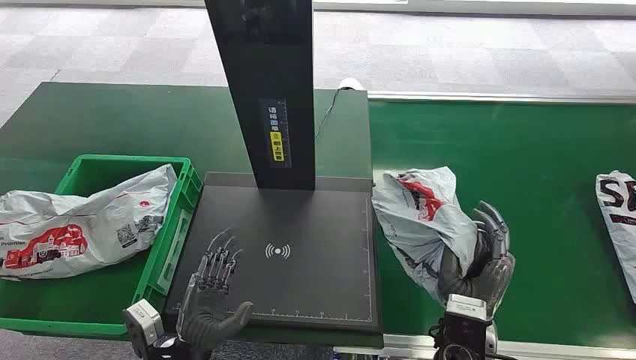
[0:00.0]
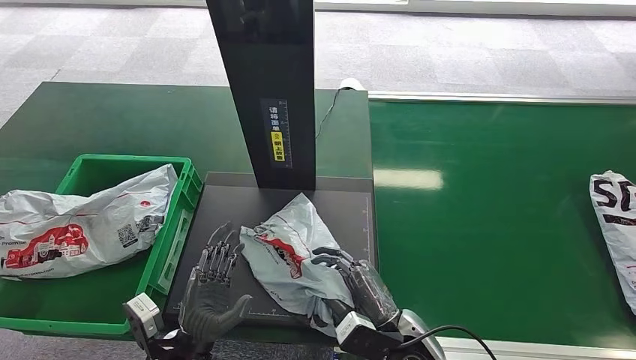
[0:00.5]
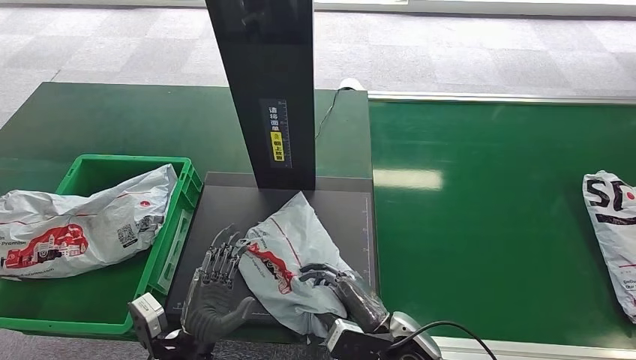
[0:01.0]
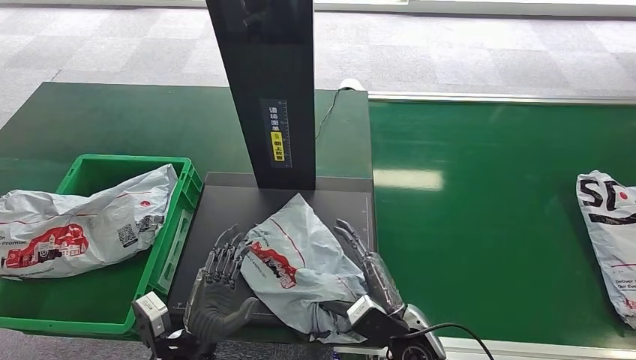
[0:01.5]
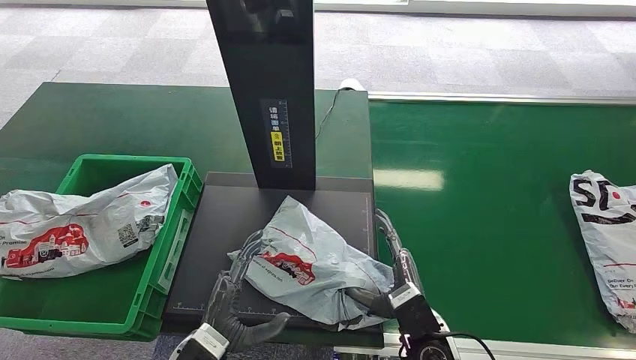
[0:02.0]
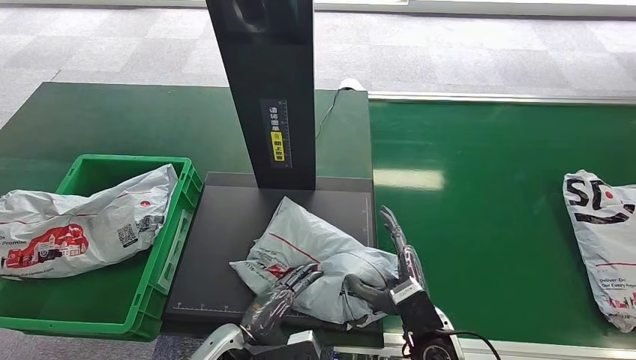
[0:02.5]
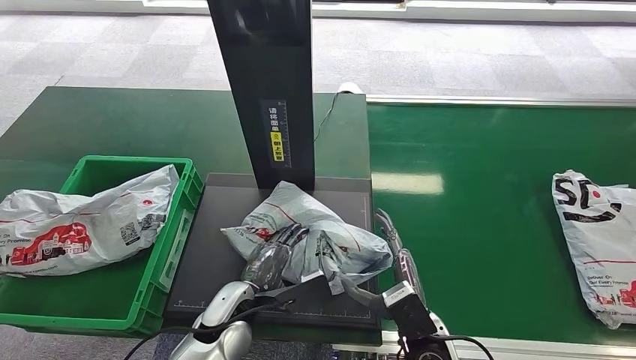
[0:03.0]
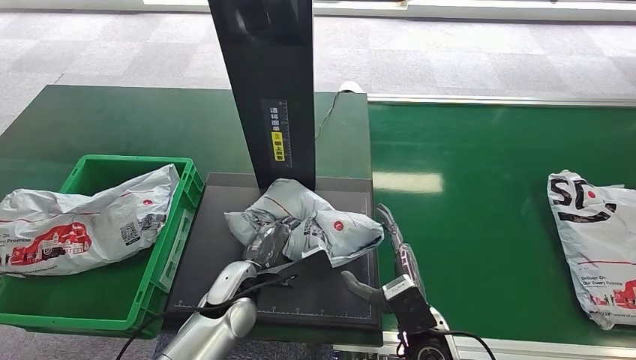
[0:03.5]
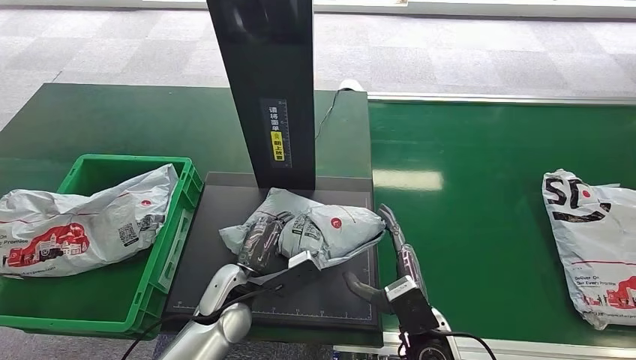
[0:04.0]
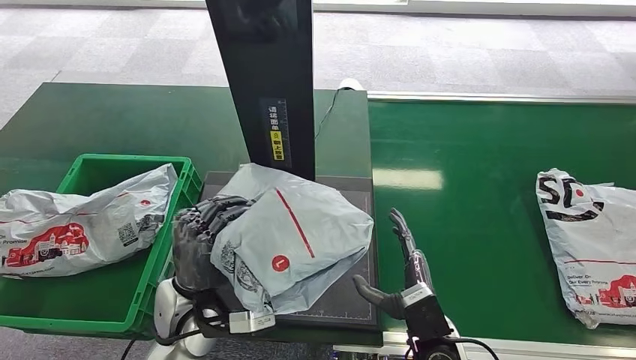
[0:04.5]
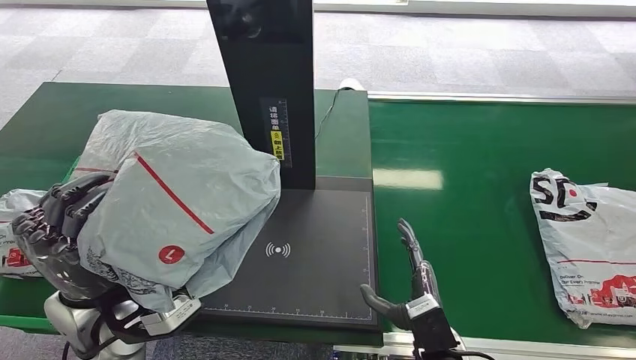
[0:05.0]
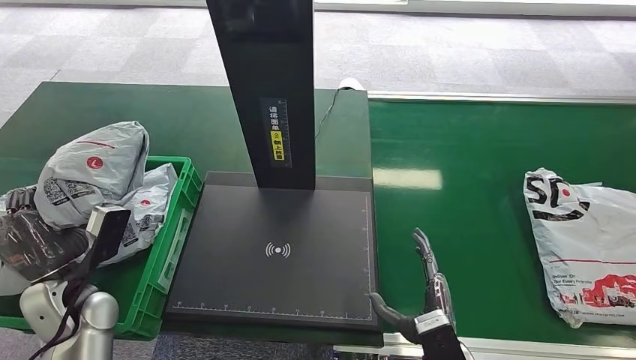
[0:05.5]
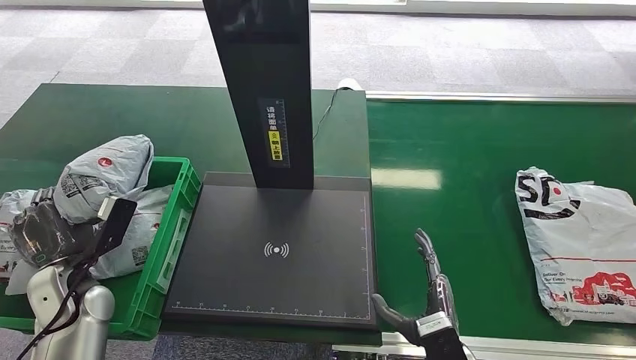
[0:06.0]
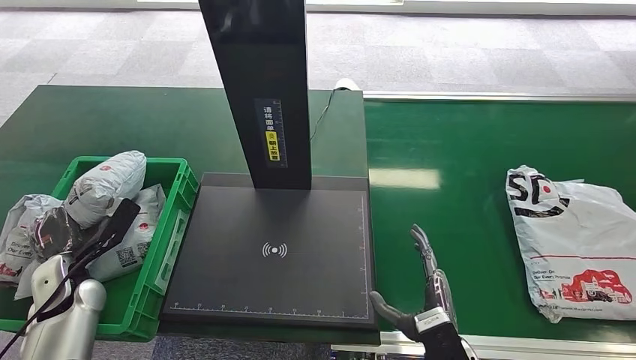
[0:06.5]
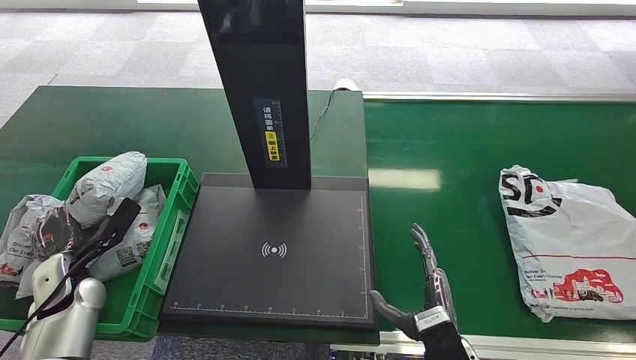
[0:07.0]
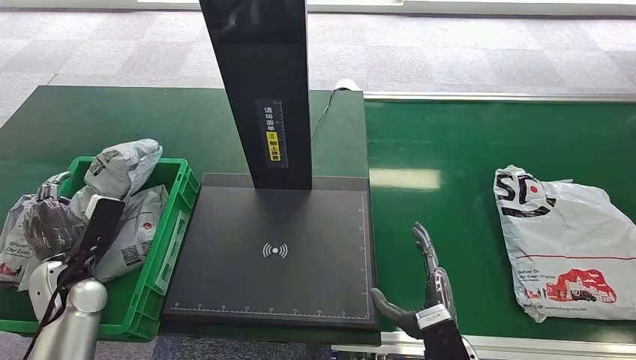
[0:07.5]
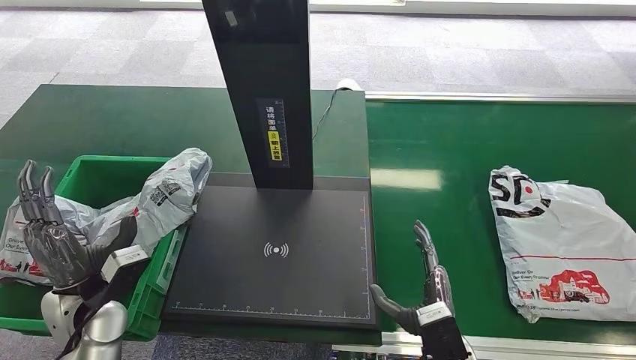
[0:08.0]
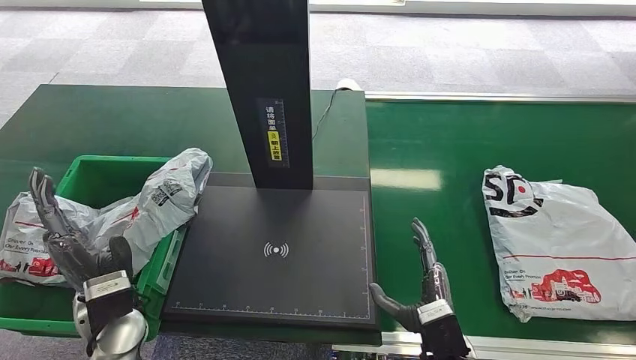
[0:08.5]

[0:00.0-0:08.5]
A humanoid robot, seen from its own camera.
0:02.0 to 0:04.0: The left hand moves forward, approximately 10 cm.
0:06.5 to 0:08.5: The left hand travels to the right by about 15 cm.

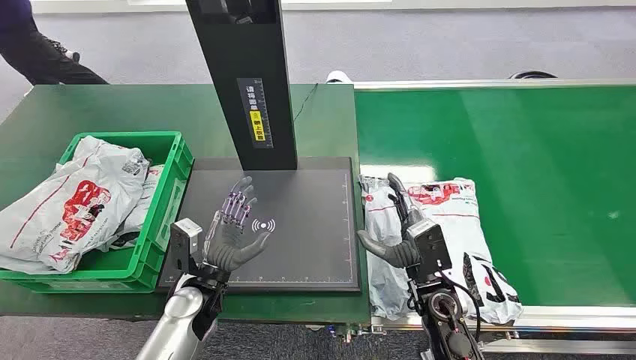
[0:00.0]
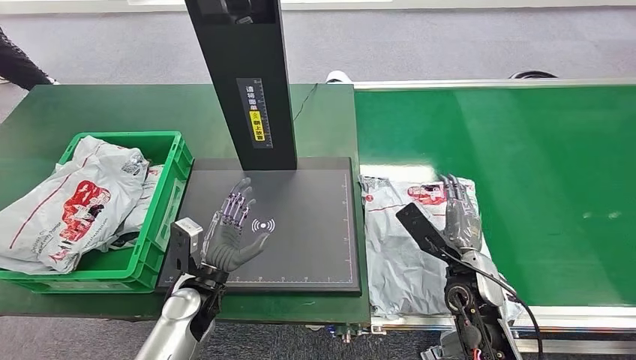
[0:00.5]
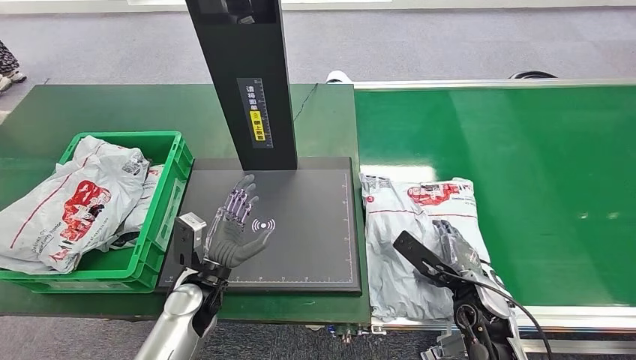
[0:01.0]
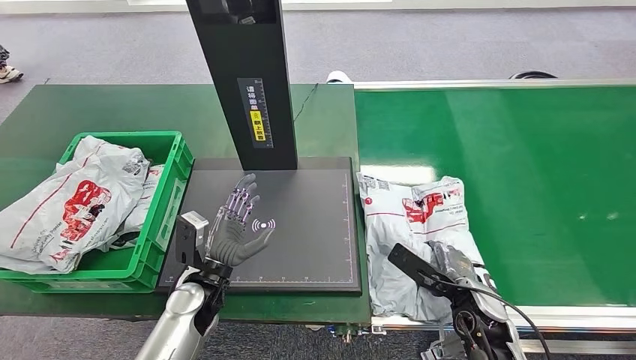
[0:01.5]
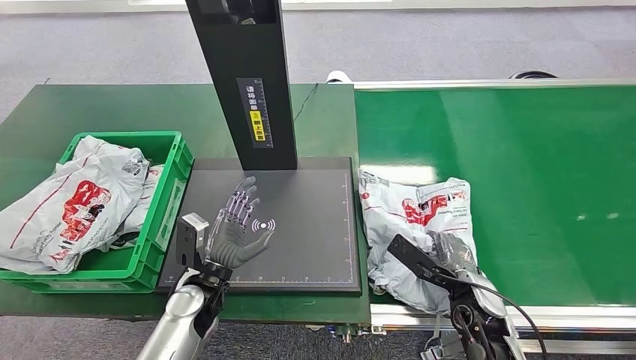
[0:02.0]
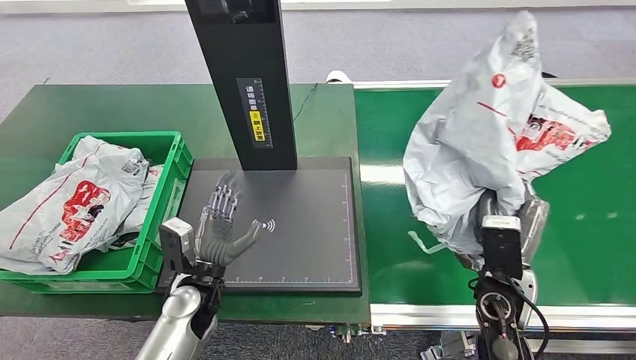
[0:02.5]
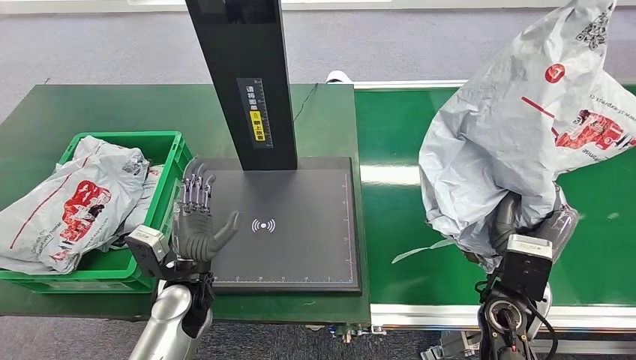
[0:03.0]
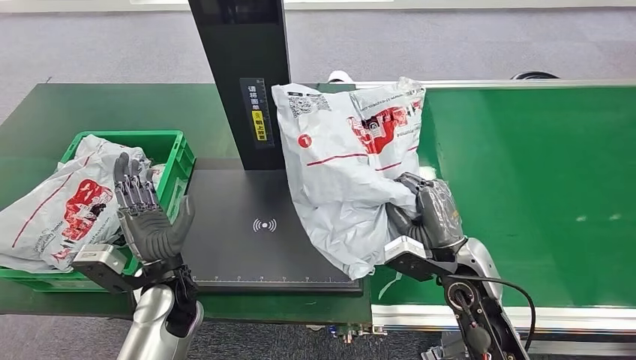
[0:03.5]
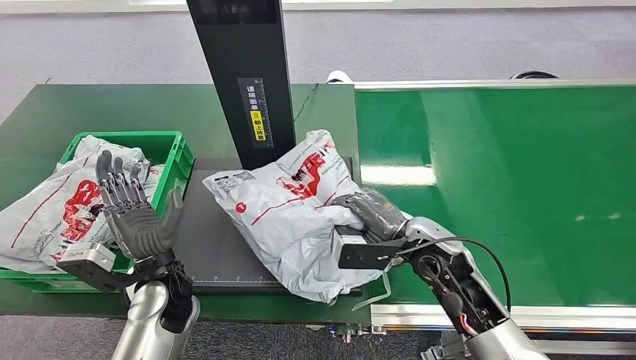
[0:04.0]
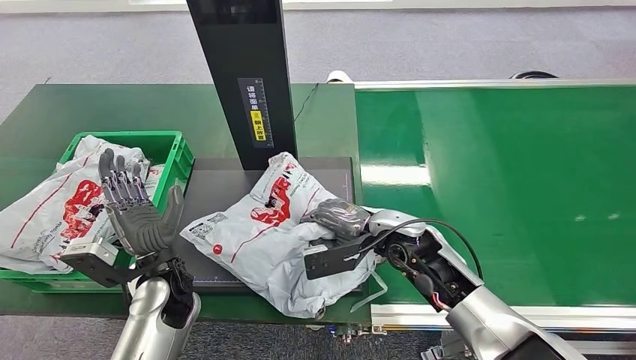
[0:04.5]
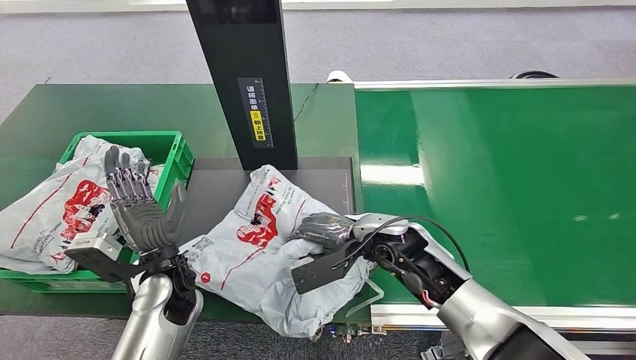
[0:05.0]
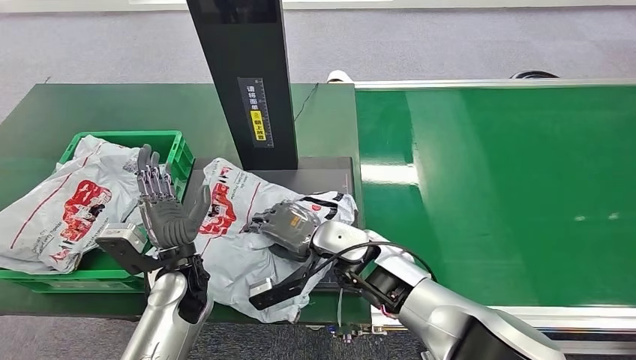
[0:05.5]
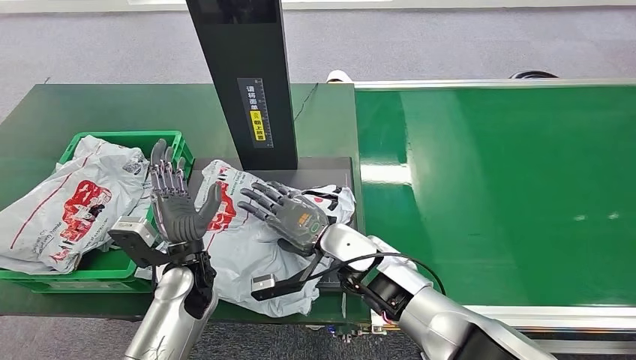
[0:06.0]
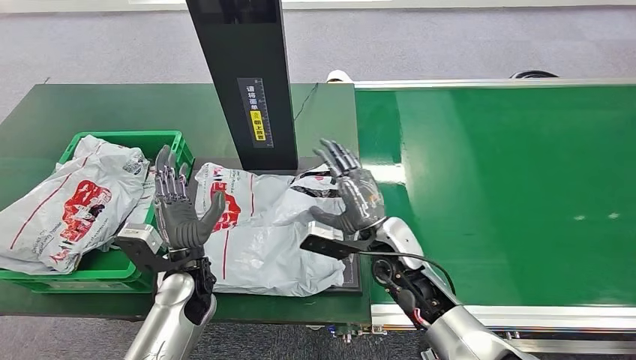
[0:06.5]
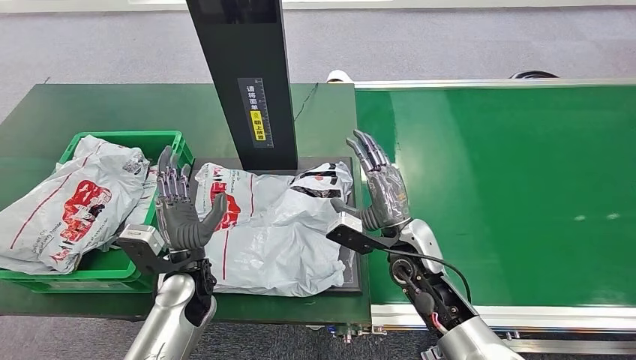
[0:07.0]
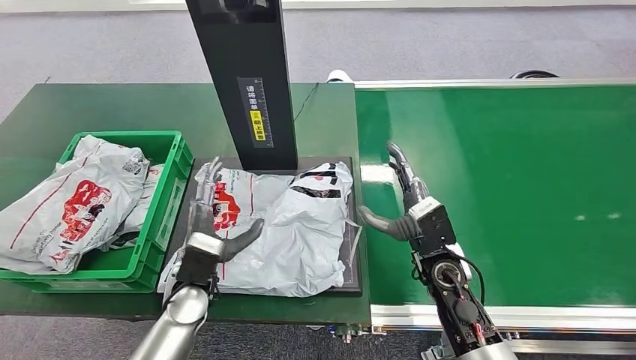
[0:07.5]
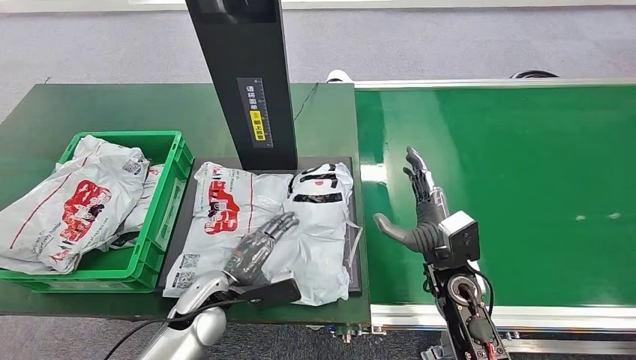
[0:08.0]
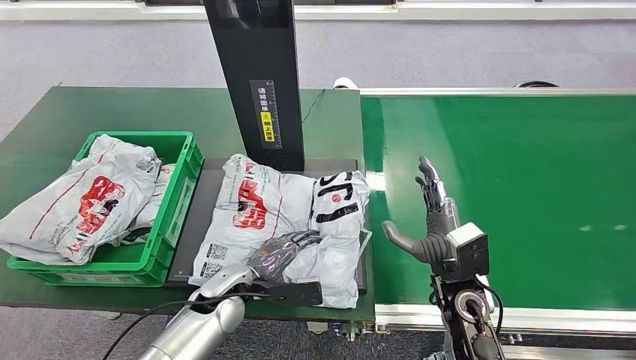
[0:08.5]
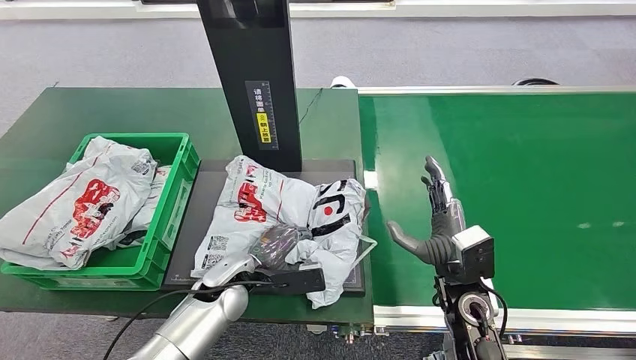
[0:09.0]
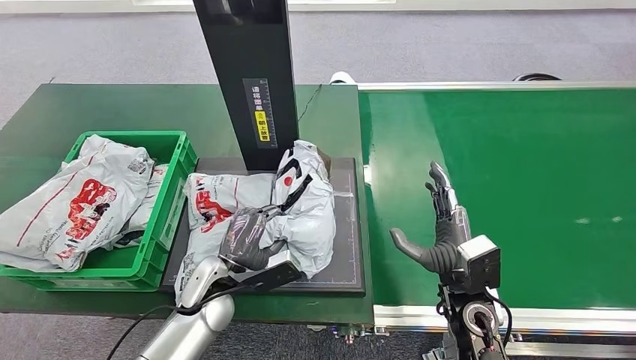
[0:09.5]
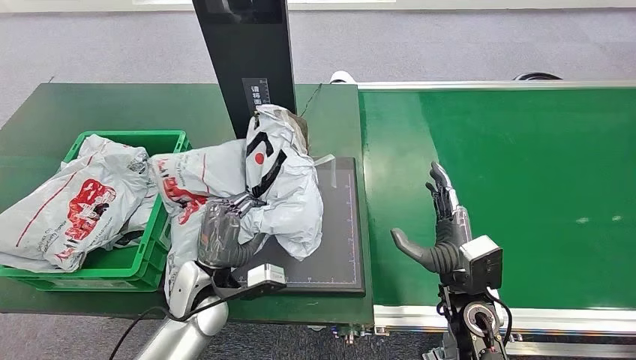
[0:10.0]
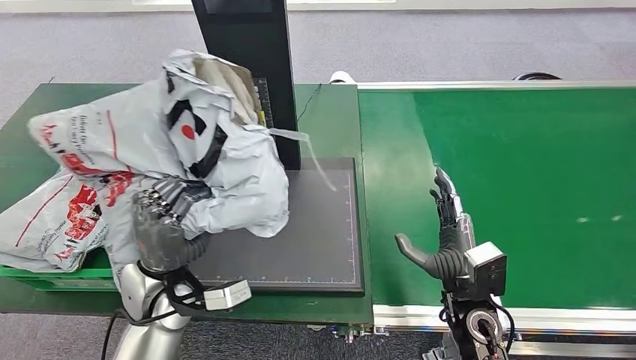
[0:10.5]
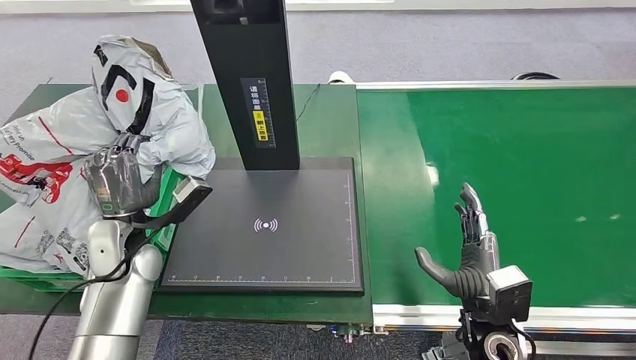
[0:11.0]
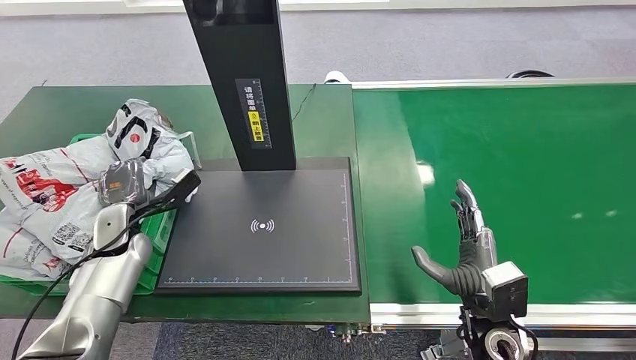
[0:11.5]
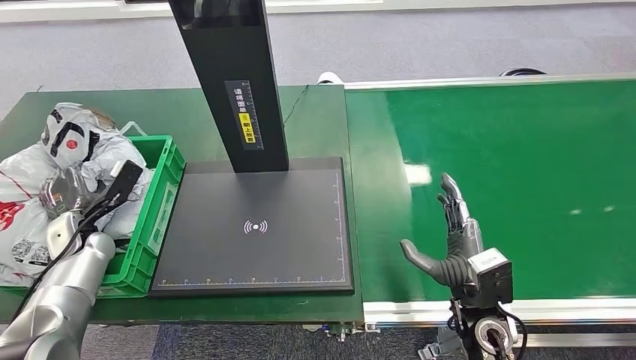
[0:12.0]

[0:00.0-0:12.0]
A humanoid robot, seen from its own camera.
Step, 0:00.0 to 0:02.5: Pick up the package from the conveyor belt.
Step, 0:03.0 to 0:06.5: Place the package onto the inbound machine.
Step, 0:07.0 to 0:10.0: Pick up the package from the inbound machine.
